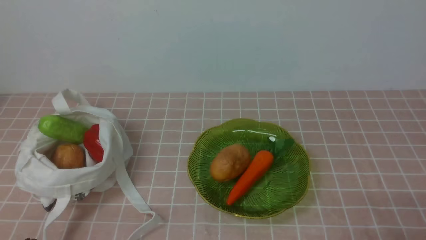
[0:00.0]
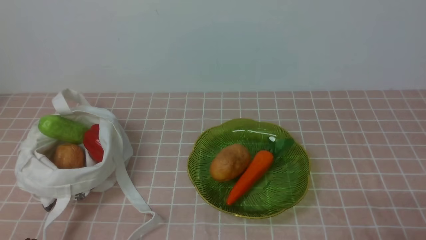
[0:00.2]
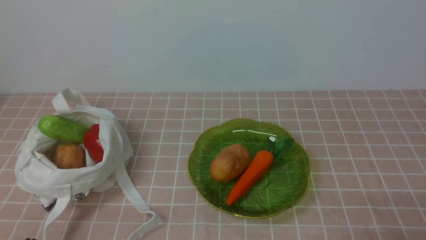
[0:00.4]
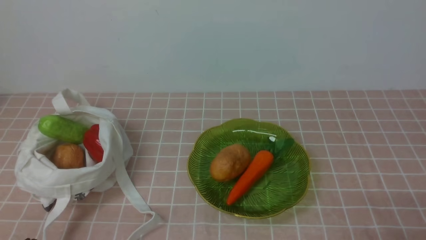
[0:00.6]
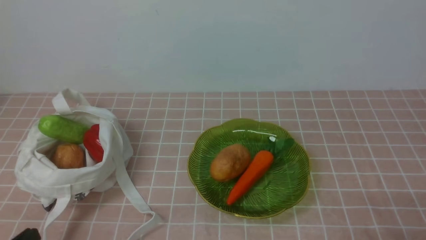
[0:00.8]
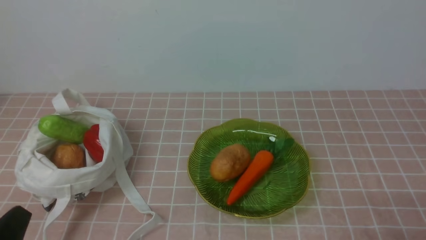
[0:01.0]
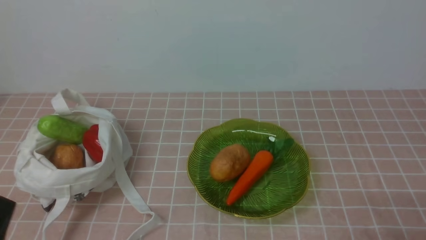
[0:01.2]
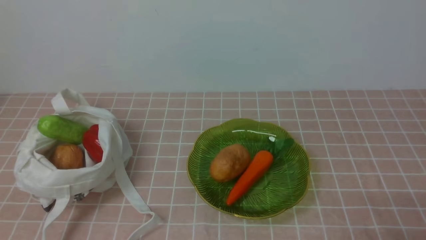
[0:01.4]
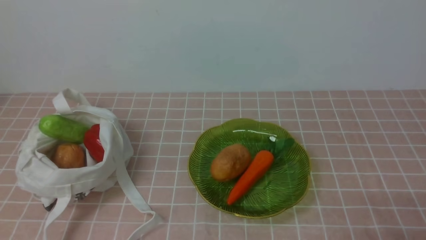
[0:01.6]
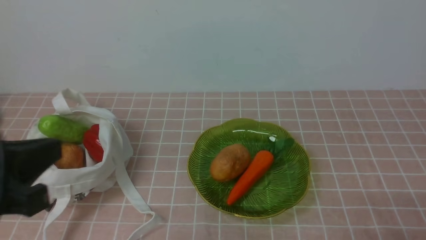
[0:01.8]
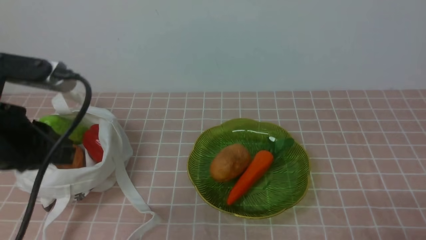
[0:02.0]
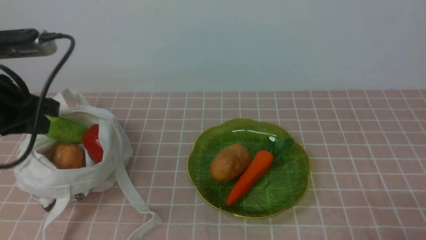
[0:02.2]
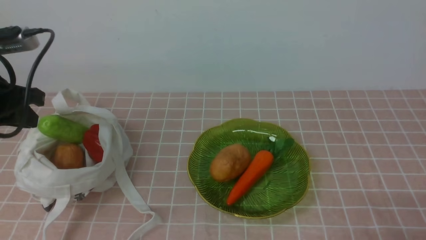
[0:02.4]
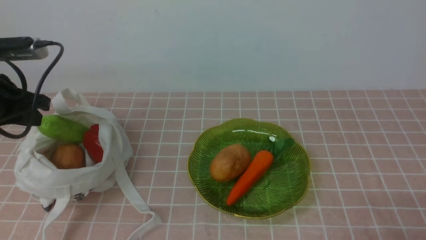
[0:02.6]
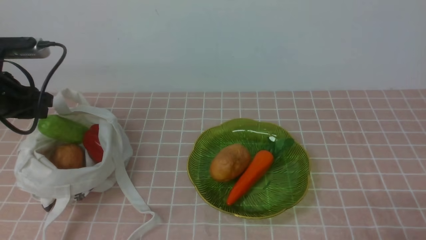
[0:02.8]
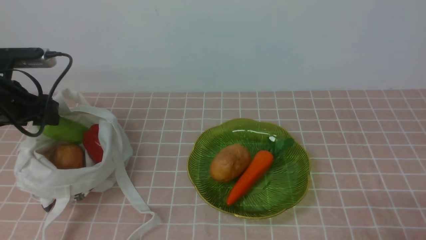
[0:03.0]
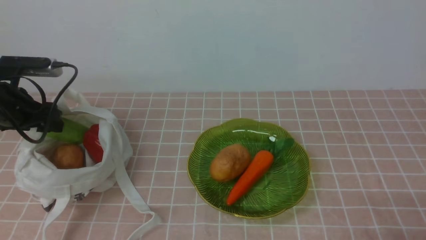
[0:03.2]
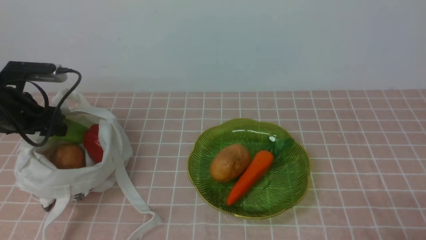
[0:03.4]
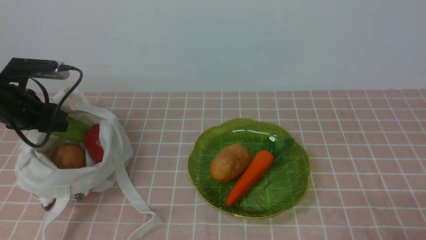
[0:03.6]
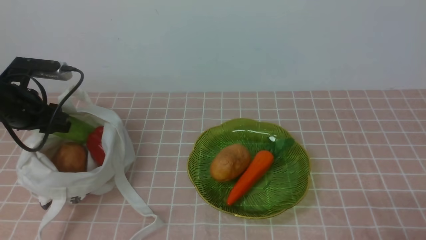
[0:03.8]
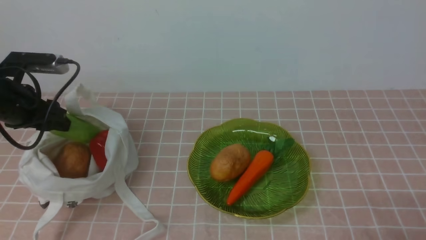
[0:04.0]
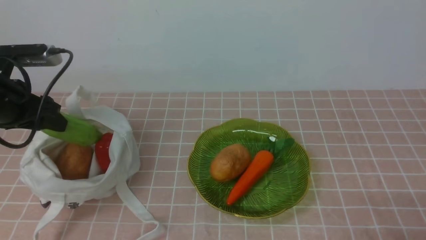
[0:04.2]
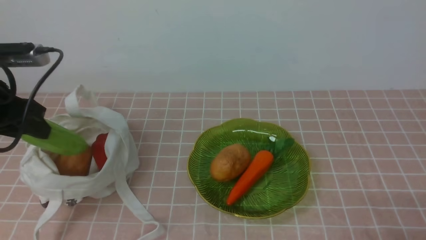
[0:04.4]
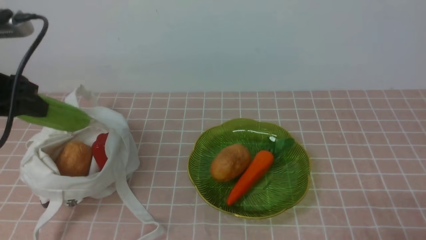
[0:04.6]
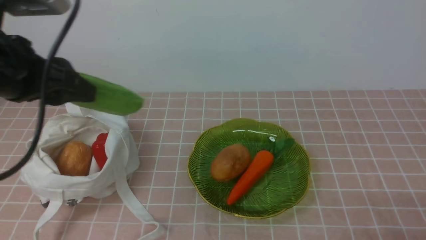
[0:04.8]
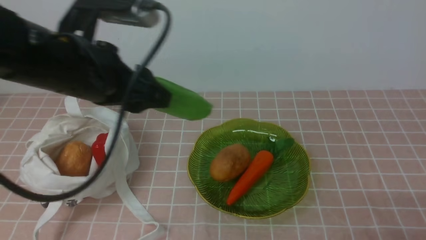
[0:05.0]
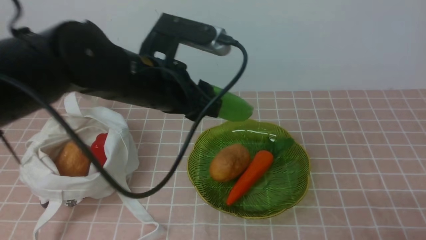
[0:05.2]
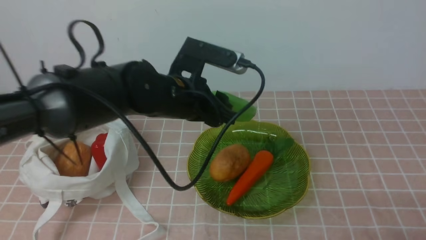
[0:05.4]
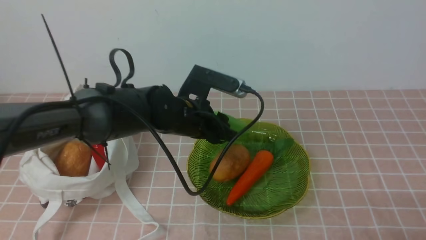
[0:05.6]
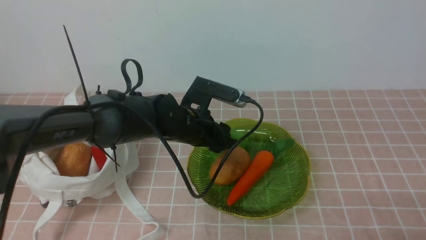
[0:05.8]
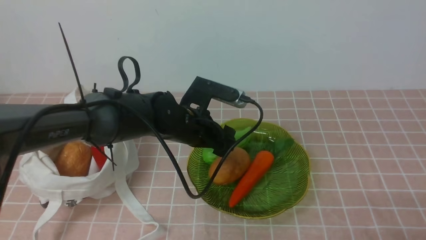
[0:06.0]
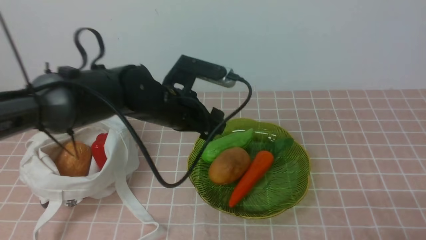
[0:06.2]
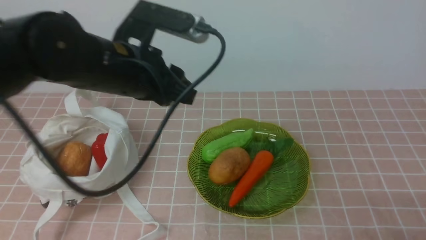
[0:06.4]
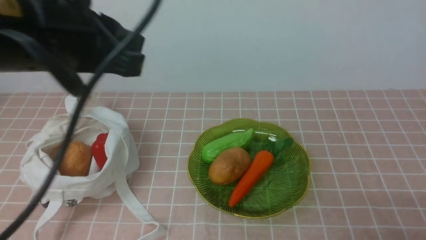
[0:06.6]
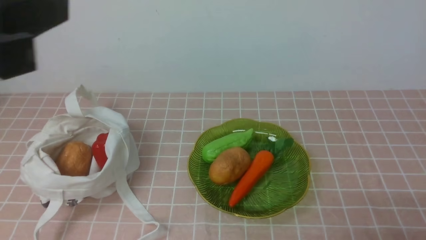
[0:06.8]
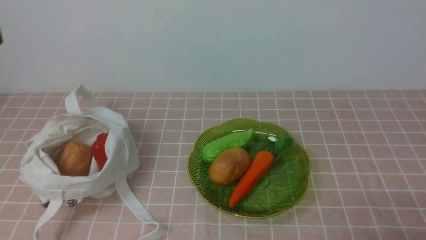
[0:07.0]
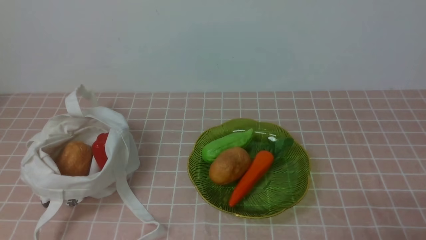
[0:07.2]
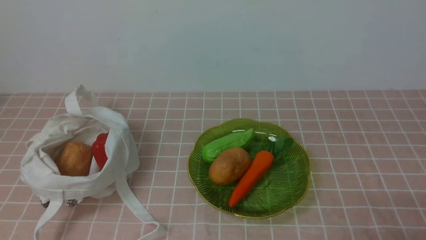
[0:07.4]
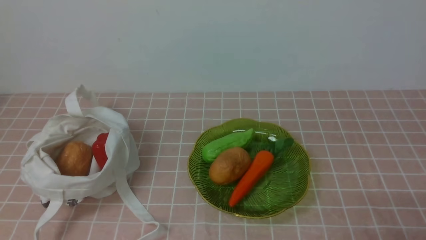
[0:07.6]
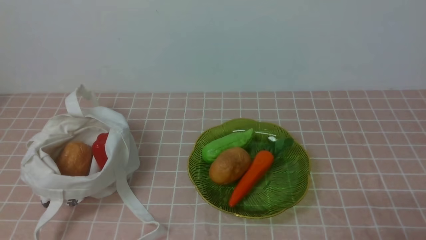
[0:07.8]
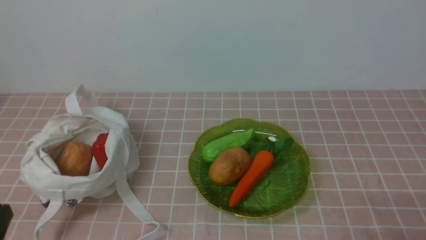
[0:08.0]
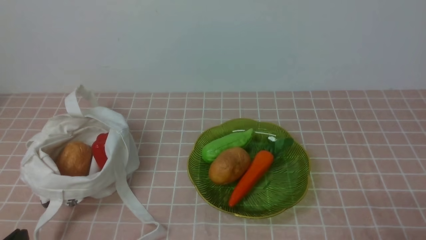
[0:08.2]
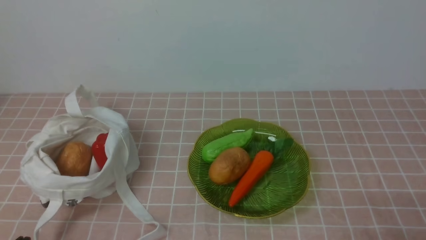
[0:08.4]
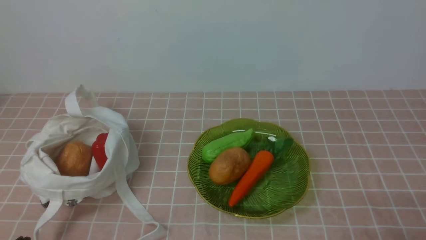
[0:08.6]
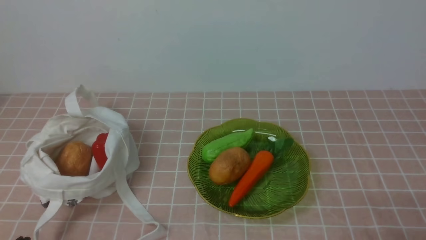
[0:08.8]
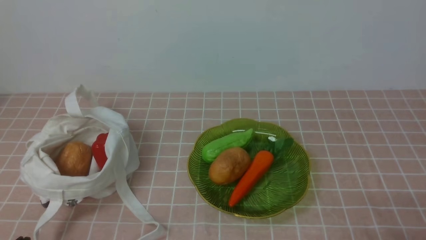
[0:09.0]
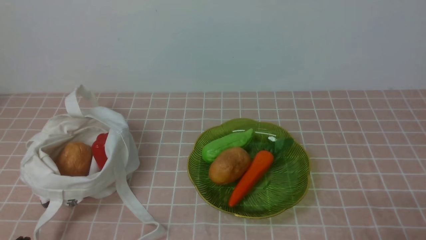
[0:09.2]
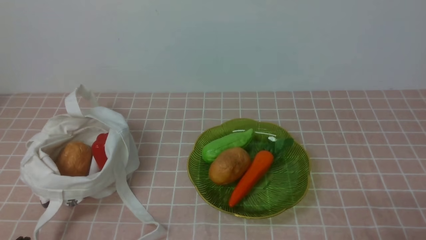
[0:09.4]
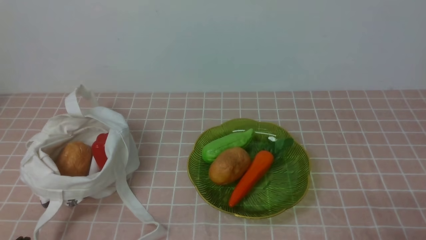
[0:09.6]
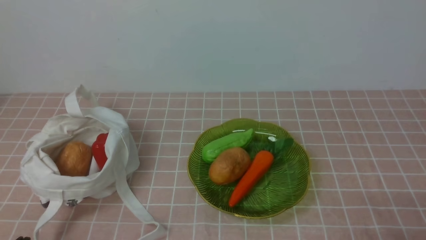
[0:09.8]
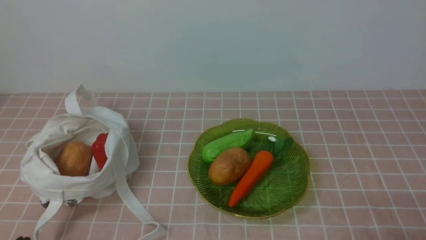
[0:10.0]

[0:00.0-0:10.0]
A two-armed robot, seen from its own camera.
Task of the whole recording: take vegetables from bag on pink coffee tablecloth place on plate.
Step, 0:00.0 to 0:03.6: Grasp the bitter melon with left gripper.
Step, 0:03.8 to 0:06.2: Place the bitter melon on the plate with left gripper.
0:01.4 to 0:02.8: The left gripper heads forward, covering some 30 cm, and opens its fingers.
0:04.2 to 0:05.8: The left gripper is displaced to the right by roughly 25 cm.
0:05.8 to 0:07.2: The left gripper heads backward, upward and to the left, covering about 40 cm, and closes.
0:08.6 to 0:10.0: The two grippers keep their place.

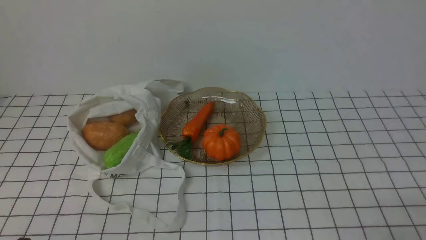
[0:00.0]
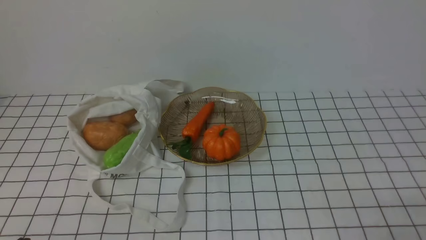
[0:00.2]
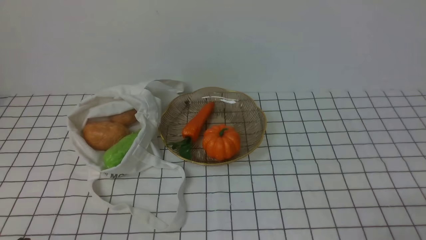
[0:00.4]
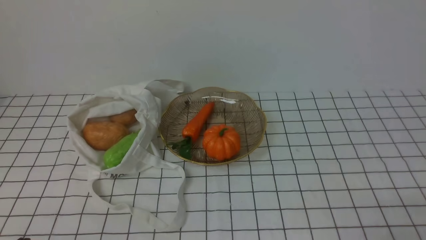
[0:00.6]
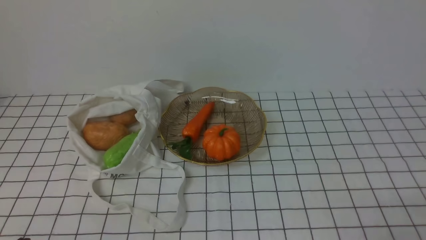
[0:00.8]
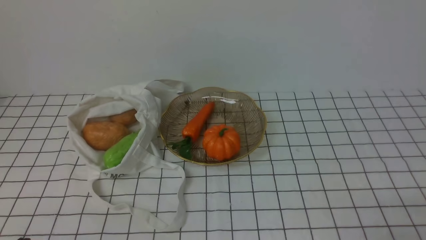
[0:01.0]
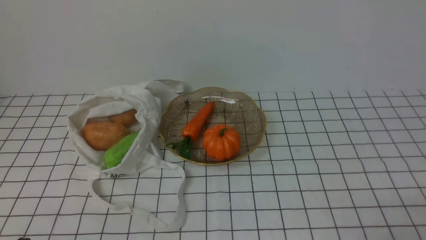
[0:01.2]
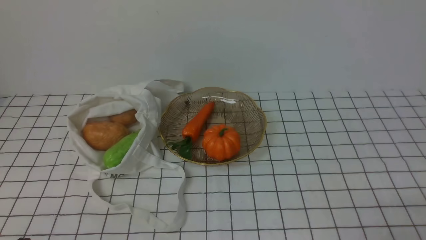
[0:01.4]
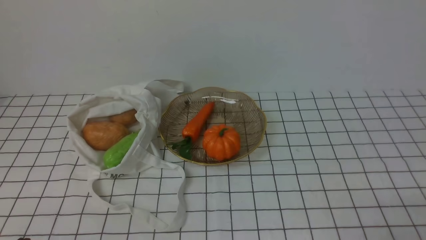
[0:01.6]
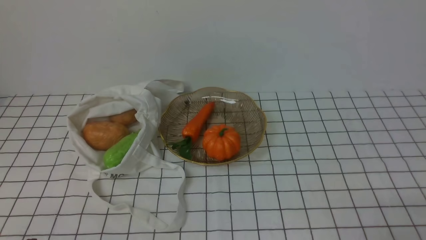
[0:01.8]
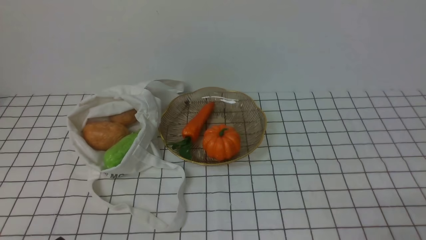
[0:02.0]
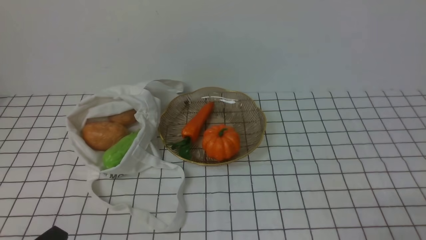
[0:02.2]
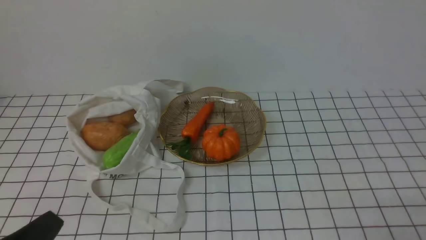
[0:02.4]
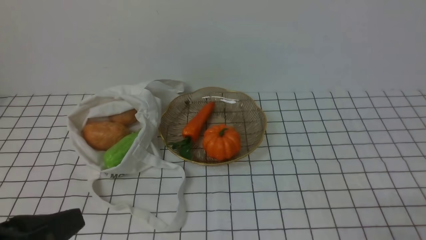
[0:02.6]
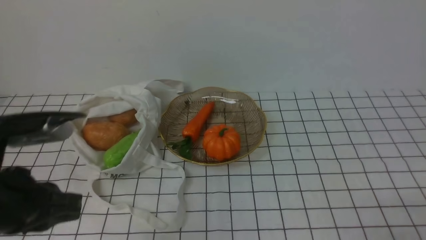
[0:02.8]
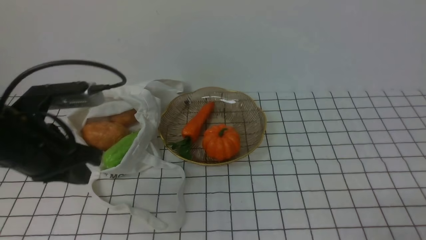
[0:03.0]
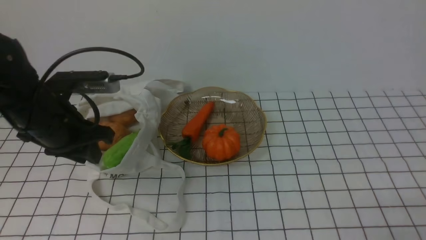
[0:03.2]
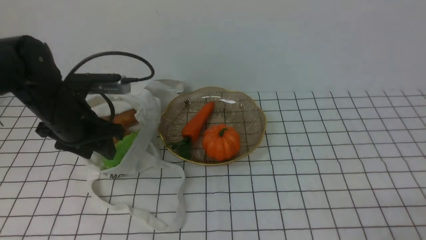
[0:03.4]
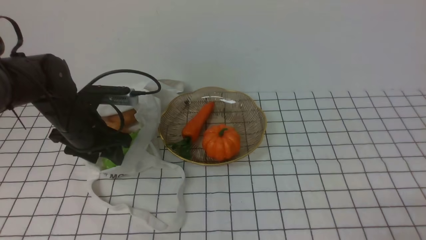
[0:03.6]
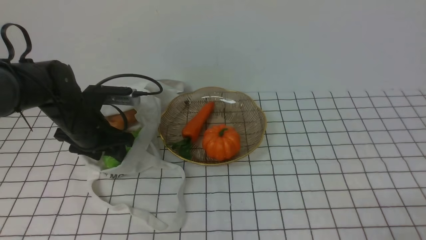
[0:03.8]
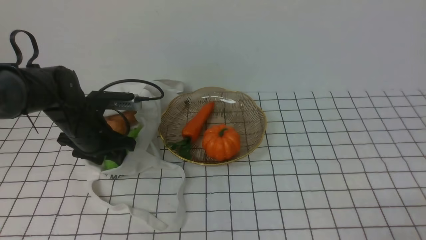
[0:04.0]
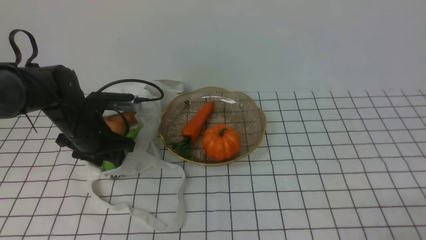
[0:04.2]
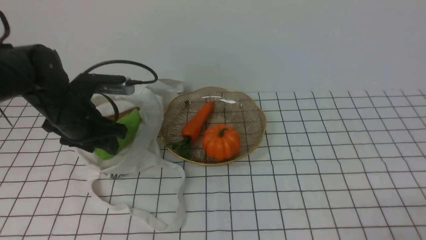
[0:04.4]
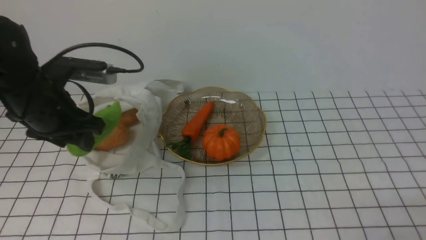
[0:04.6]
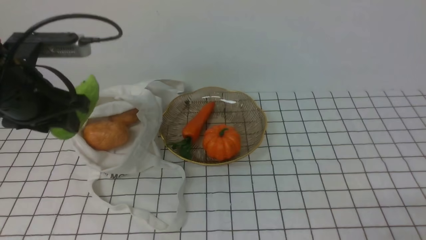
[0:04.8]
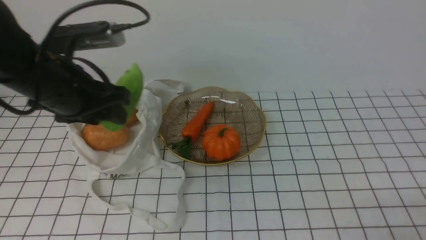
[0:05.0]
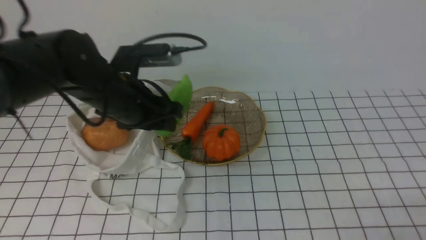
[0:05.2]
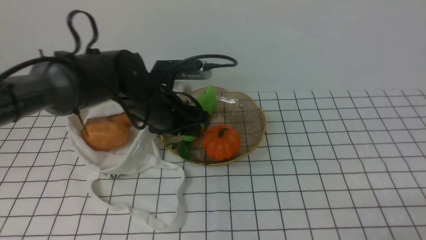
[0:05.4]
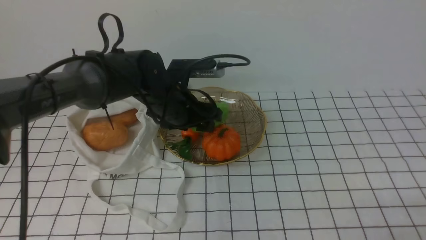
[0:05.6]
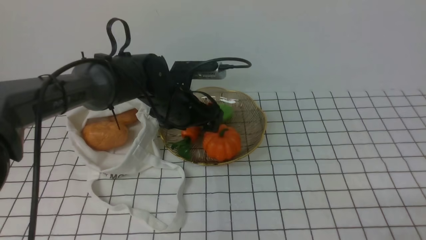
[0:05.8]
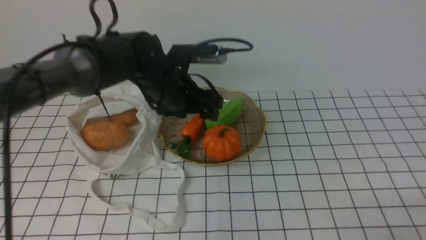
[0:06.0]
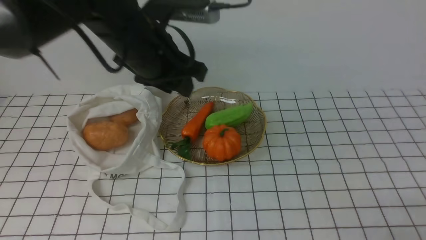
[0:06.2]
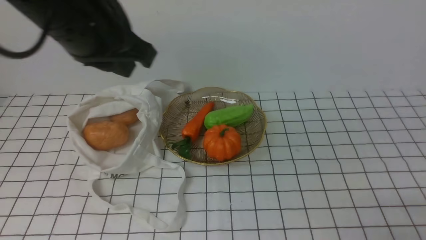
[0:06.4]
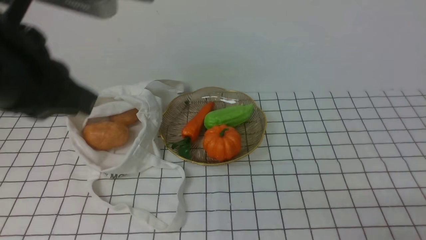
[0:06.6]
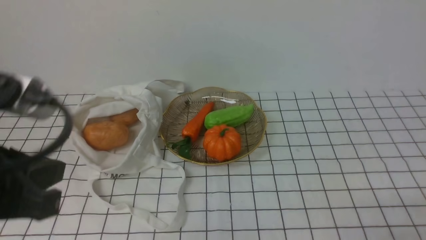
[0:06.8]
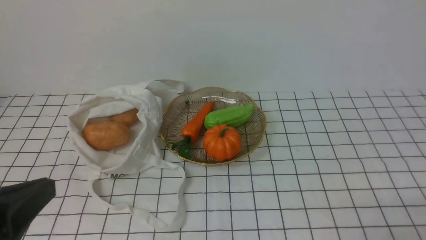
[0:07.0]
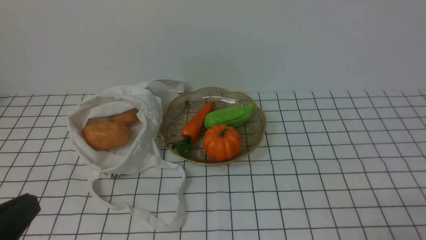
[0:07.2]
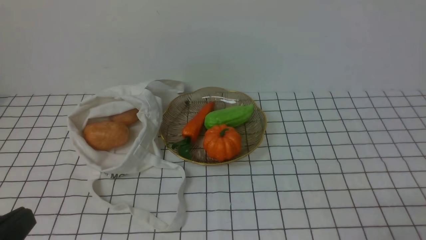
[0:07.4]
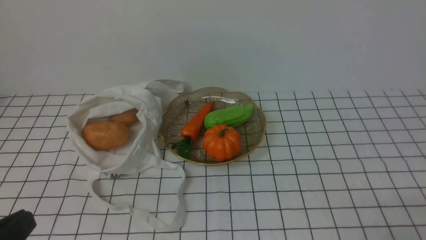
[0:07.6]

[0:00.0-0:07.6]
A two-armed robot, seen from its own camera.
Task of the whole recording: take vegetables from bag on white checkered tablecloth place on plate.
Step, 0:00.0 to 0:04.0: Grasp the bitter melon with left gripper.
Step, 0:04.2 to 0:06.0: Place the bitter melon on the plate with left gripper.
0:01.6 to 0:03.0: The left gripper heads forward and upward, covering some 20 cm.
0:03.0 to 0:04.6: The left gripper moves forward, some 15 cm, and opens.
0:04.6 to 0:06.0: The left gripper shifts approximately 15 cm to the right, and opens.
0:06.0 to 0:07.6: The left gripper travels backward and to the left by some 40 cm, and closes up.
